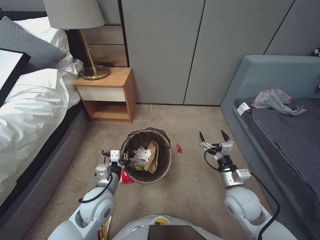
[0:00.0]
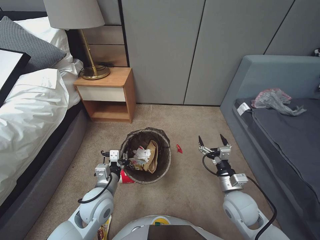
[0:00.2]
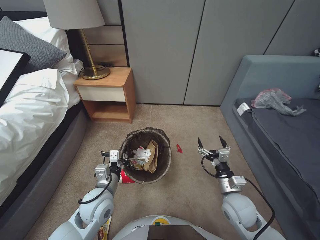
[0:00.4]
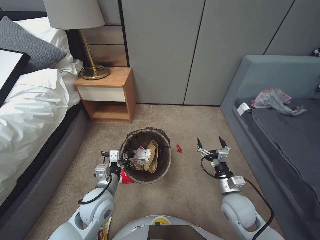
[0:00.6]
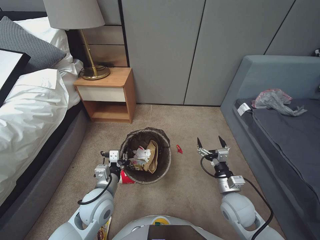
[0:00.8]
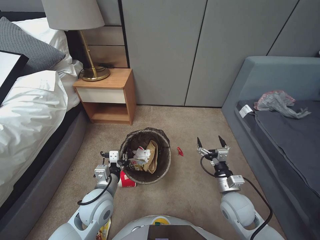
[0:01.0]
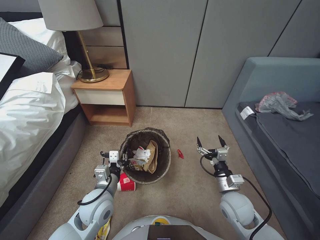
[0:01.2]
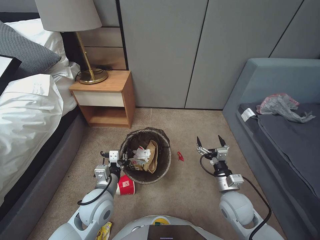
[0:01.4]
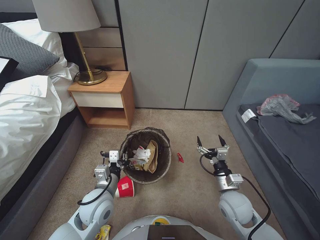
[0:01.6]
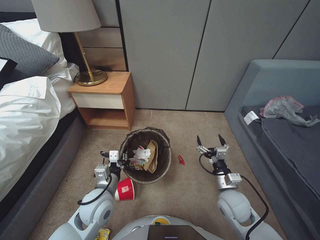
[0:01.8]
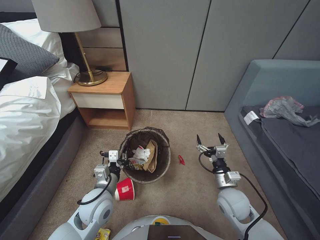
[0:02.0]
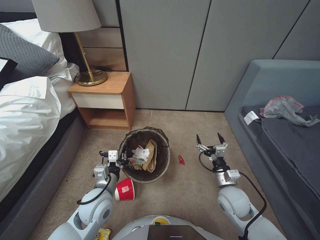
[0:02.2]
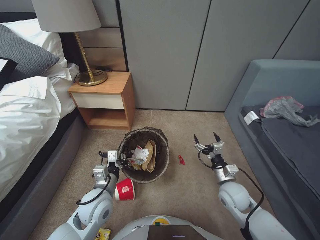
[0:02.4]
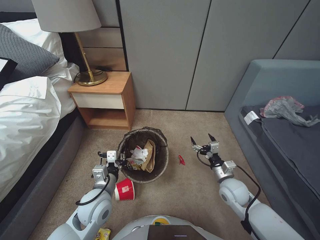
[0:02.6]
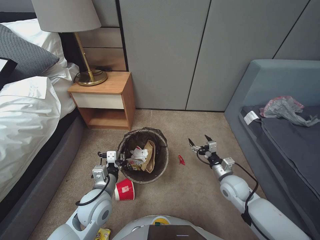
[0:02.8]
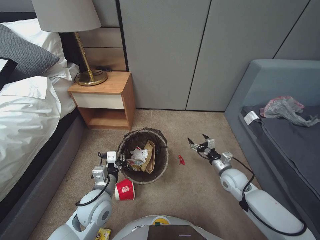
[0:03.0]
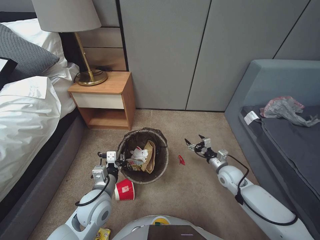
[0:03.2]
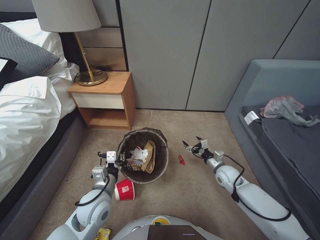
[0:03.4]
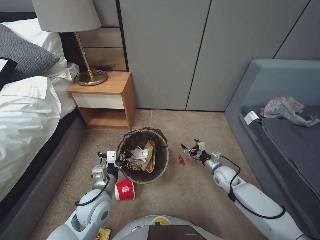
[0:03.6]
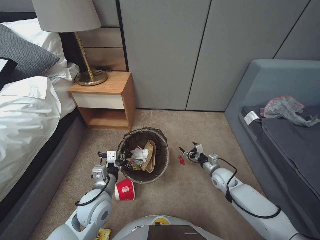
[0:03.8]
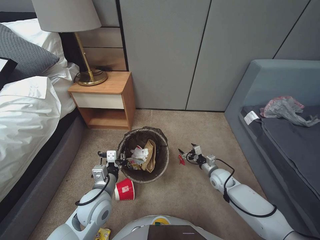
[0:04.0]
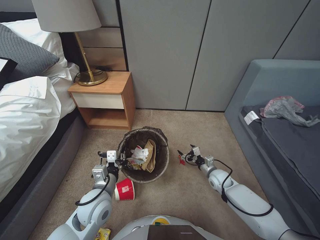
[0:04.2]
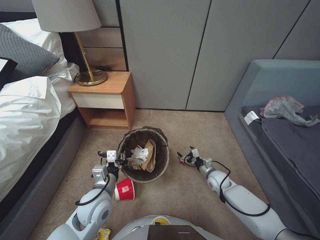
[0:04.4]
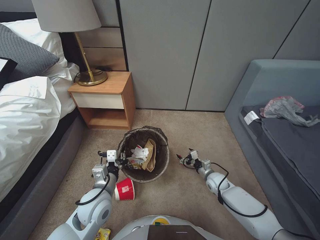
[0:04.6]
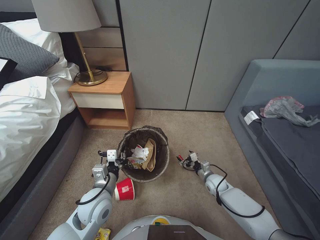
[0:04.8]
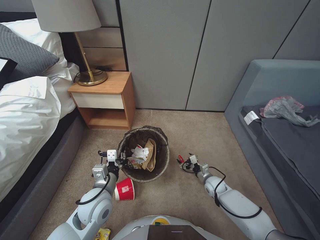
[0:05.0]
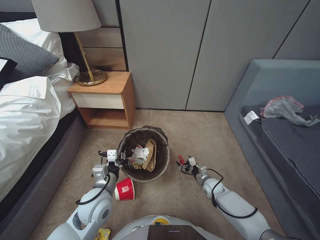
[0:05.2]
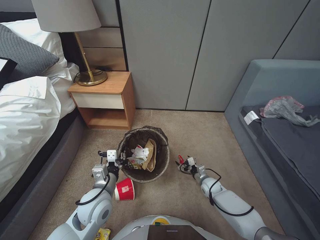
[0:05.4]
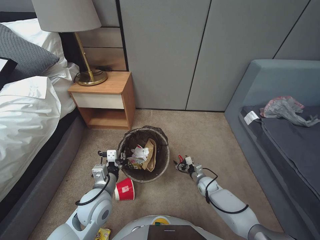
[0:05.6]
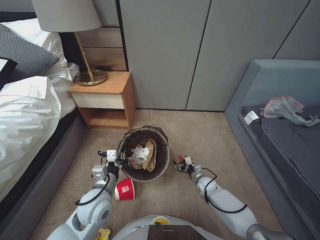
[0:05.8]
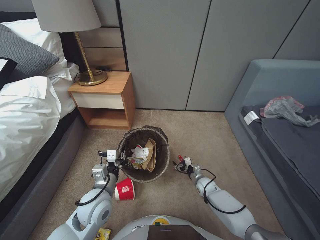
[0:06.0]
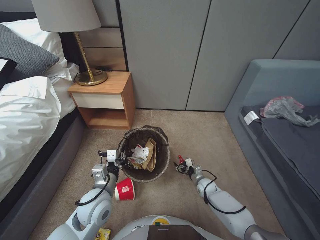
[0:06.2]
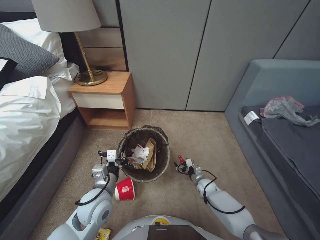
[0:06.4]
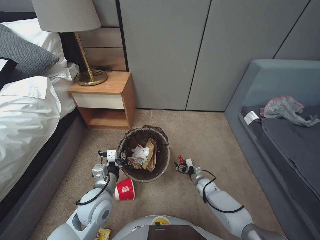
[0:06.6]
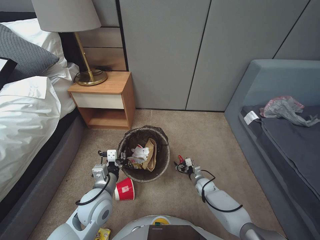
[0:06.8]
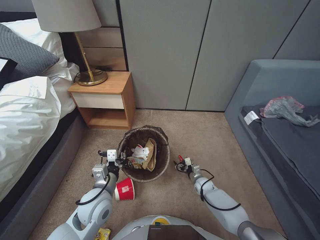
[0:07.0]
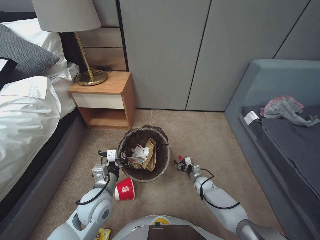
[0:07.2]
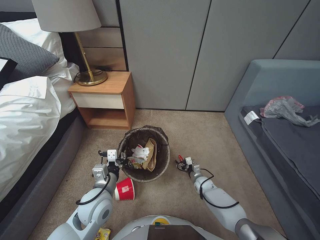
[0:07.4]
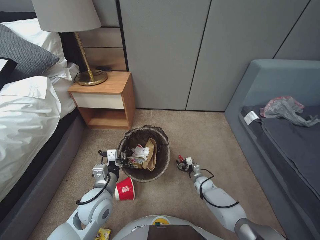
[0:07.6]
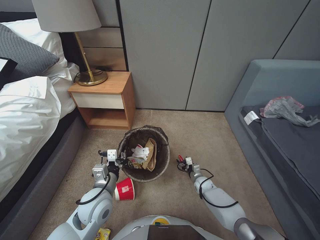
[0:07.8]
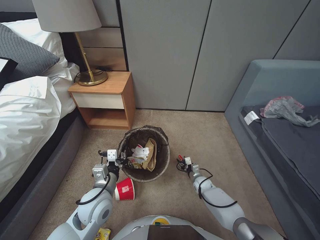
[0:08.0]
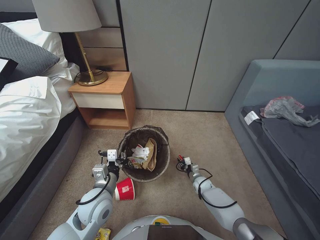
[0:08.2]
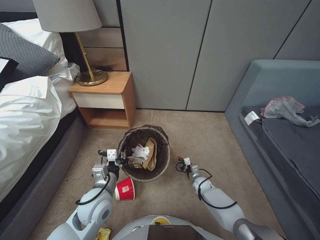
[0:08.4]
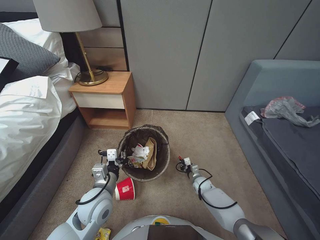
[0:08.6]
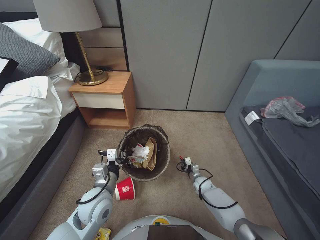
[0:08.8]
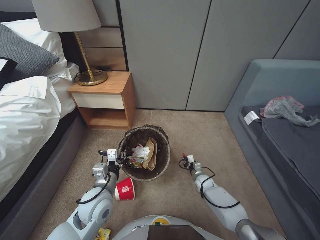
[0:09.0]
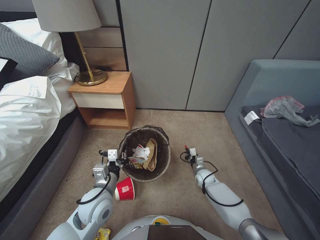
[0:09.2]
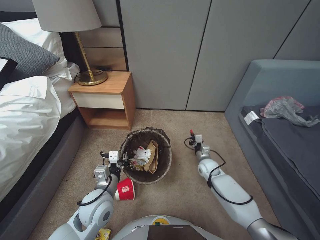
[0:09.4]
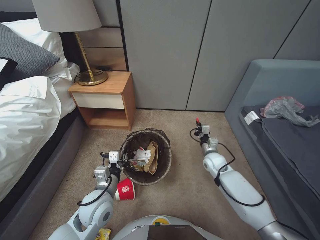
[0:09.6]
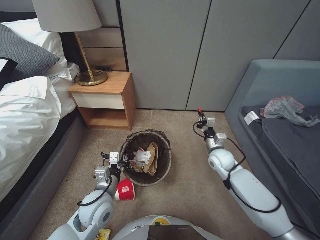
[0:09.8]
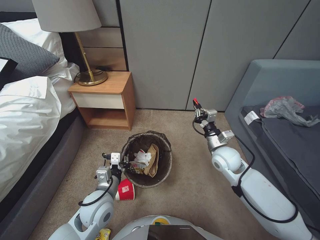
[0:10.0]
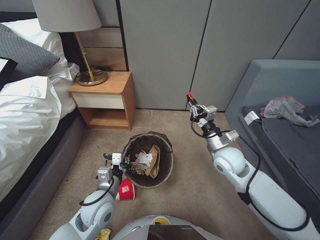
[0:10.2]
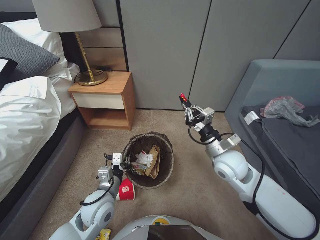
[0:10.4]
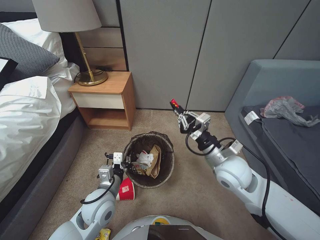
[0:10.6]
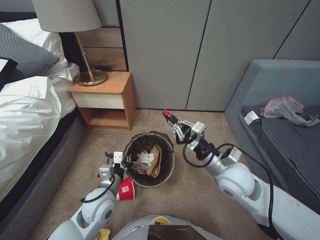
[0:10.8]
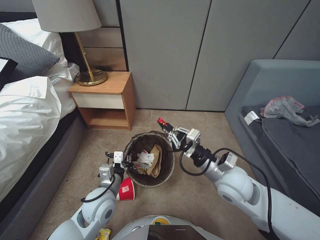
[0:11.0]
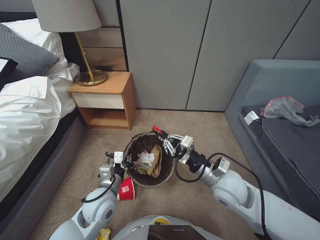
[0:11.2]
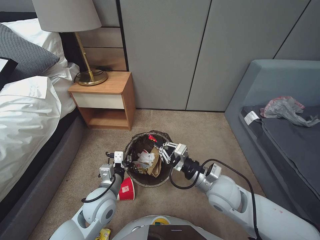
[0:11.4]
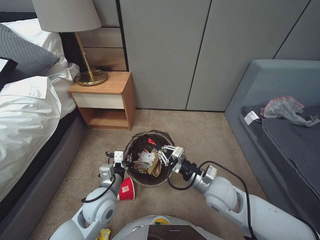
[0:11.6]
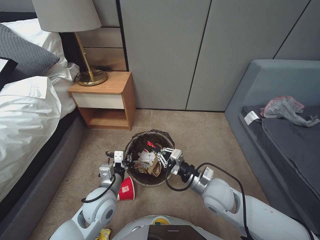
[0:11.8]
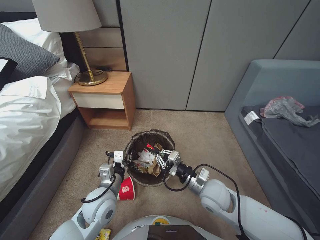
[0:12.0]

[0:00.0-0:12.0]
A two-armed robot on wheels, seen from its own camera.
Task of the whole recording: Pick up the trash bin, then pick up the garbage from the floor and place it into the trash bin.
0:00.0 to 0:01.6: The grippers stay close to where they were, moving slightly.
0:01.6 to 0:03.0: The right gripper is displaced forward and to the right by some 10 cm.
0:03.0 to 0:04.4: The right gripper moves downward, about 10 cm.
0:04.4 to 0:06.0: The right gripper travels downward by about 10 cm.
0:06.0 to 0:07.6: The grippers move only a little.
0:07.6 to 0:09.0: The right gripper closes.
0:09.0 to 0:10.4: The right gripper heads upward, covering about 25 cm.
0:10.4 to 0:12.0: The right gripper shifts roughly 20 cm backward, to the left and upward.

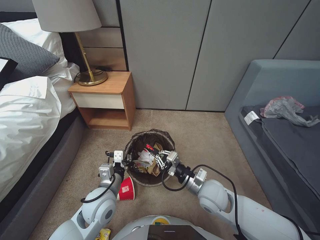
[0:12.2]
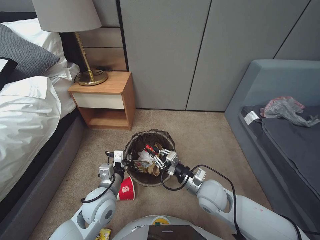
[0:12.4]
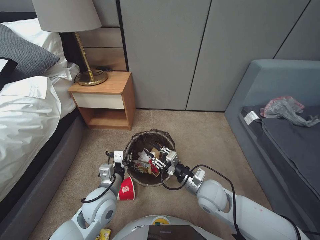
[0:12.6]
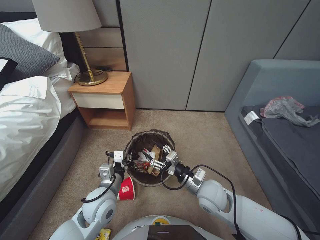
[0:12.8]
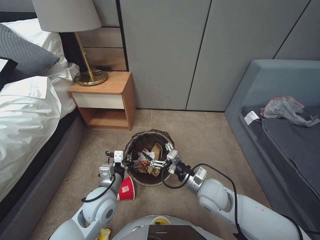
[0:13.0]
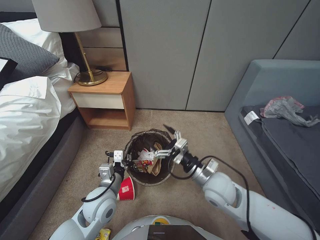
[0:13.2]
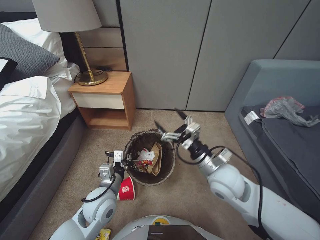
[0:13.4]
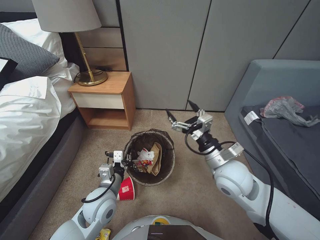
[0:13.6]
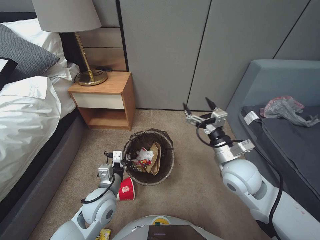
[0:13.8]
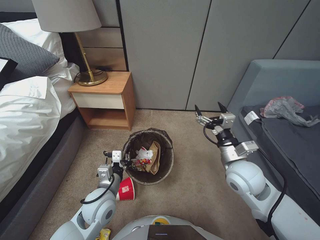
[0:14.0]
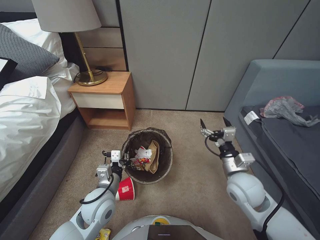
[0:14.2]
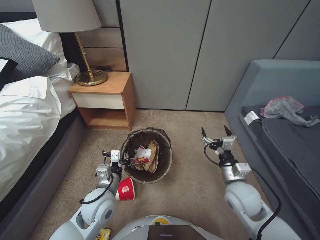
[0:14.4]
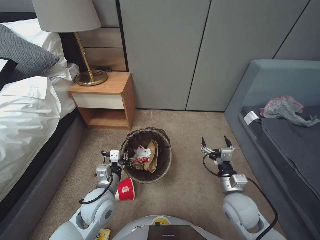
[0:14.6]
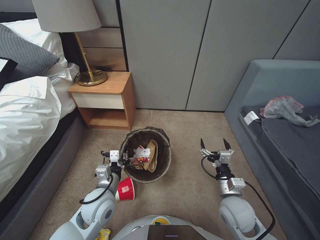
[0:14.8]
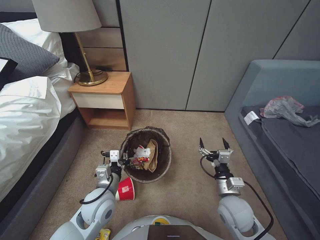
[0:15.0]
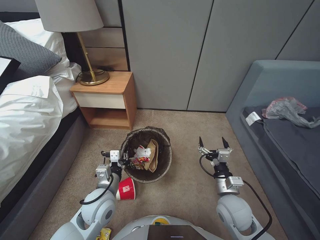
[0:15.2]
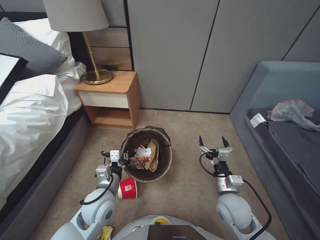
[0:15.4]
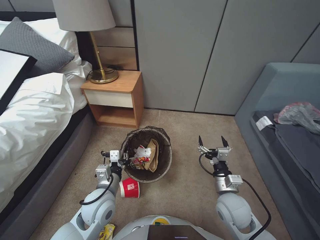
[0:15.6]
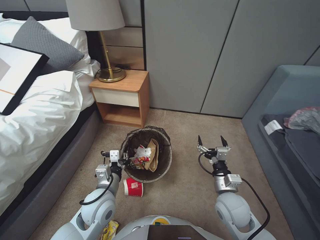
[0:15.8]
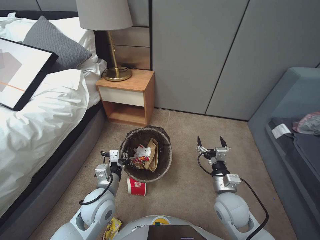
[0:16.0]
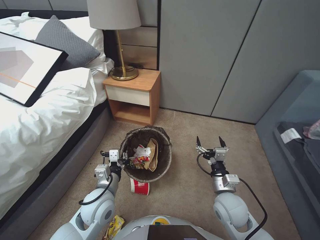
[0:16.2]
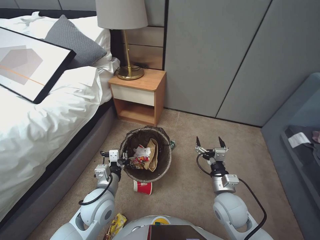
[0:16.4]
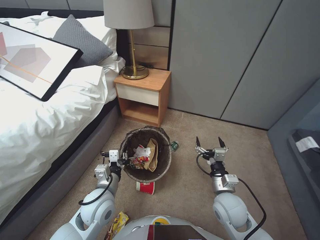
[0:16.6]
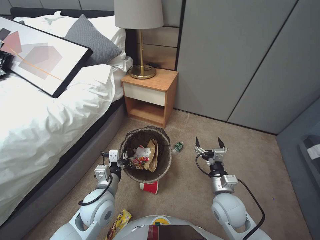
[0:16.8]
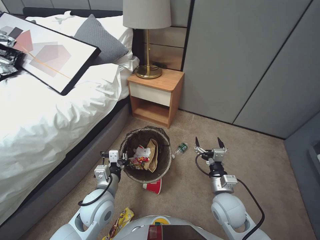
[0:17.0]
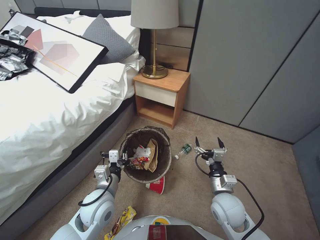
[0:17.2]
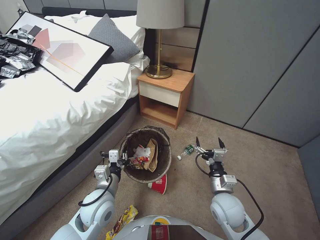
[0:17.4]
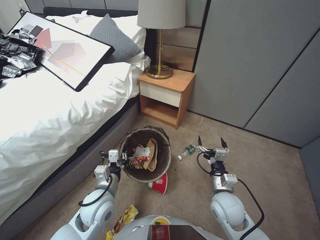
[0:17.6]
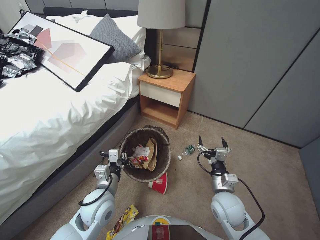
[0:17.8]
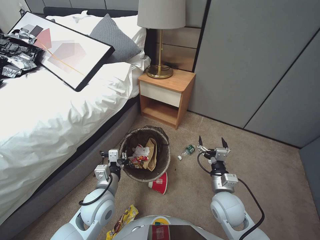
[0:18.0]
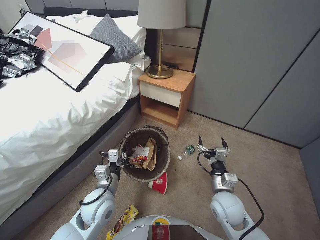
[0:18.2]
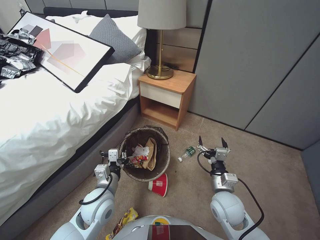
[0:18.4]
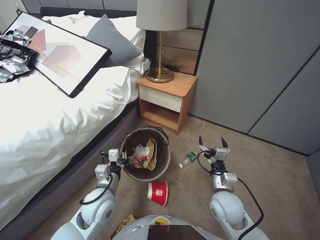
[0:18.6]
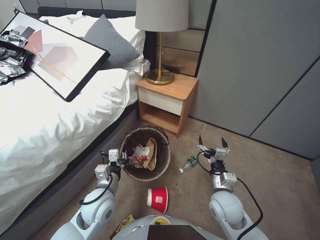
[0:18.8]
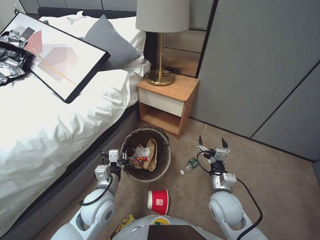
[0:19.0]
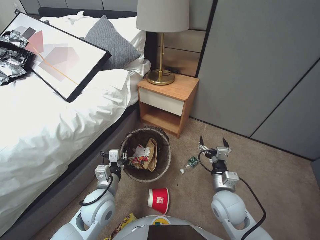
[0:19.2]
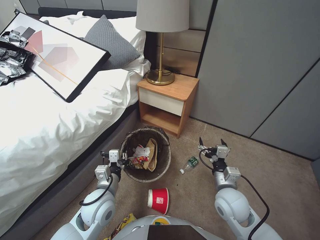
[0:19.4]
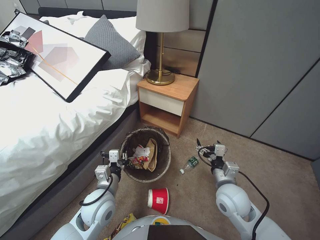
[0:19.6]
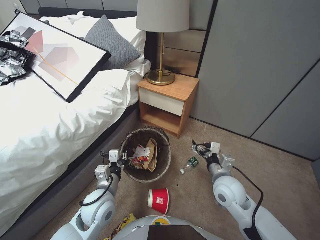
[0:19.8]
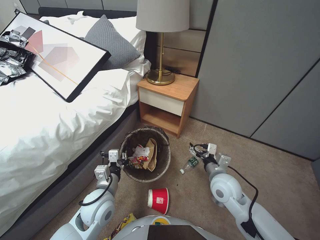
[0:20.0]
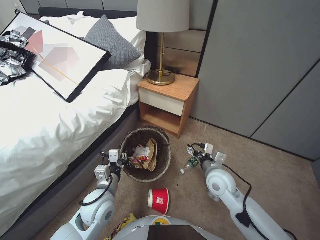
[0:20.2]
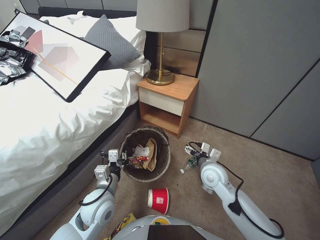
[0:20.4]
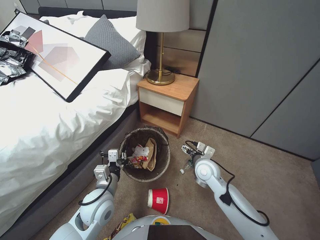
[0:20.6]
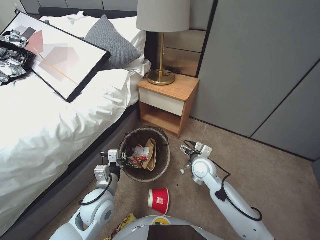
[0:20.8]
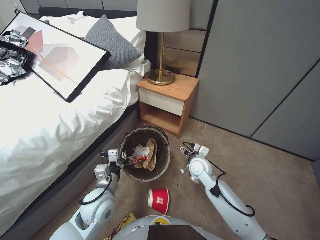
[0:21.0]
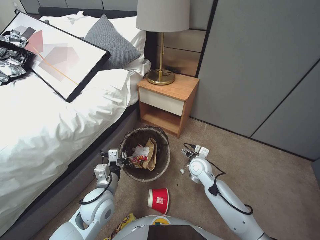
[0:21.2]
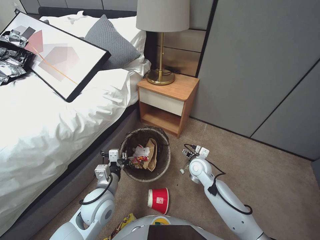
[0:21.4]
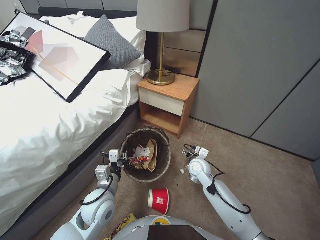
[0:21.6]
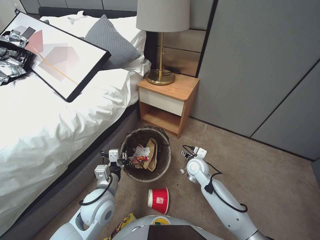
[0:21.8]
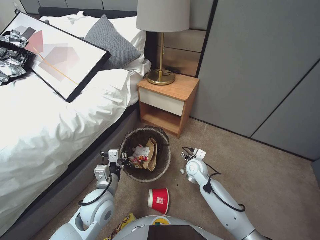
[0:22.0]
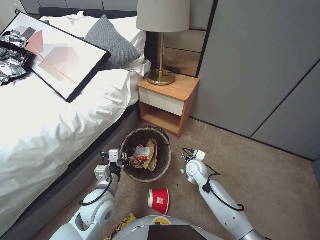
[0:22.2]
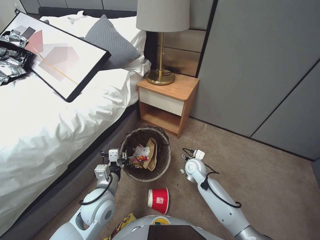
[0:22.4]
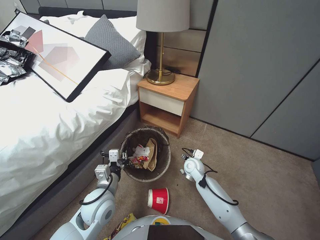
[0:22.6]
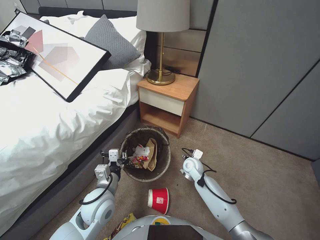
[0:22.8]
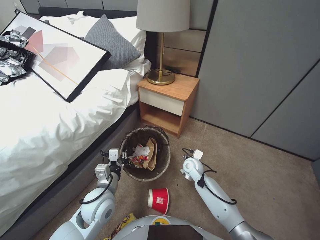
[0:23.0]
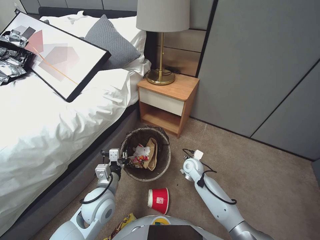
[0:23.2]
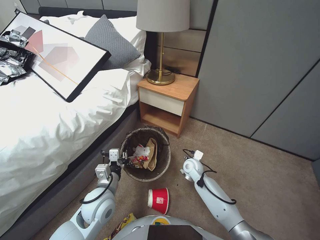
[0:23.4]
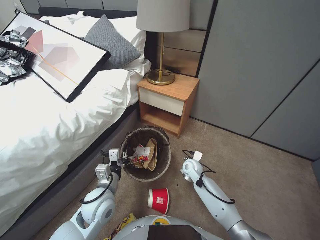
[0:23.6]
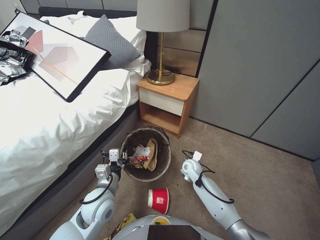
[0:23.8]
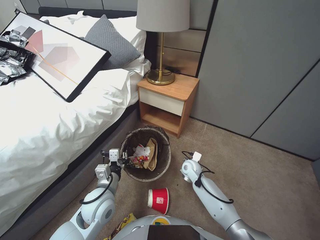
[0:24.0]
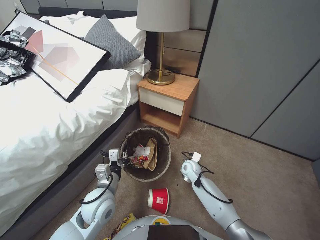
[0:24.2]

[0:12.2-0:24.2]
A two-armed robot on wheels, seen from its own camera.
Task of the whole recording: Pick up the trash bin, then pick up the garbage from the floor and place it into the trash bin.
0:12.2 to 0:13.8: The right gripper travels upward by approximately 10 cm, and opens.
0:13.8 to 0:15.2: The right gripper shifts approximately 15 cm downward and backward.
0:18.2 to 0:19.8: The right gripper moves some 5 cm.
0:19.8 to 0:21.2: The right gripper is displaced forward and downward by about 15 cm.
0:21.2 to 0:22.6: The right gripper moves downward, approximately 5 cm.
0:22.6 to 0:24.2: The grippers stay close to where they were, moving slightly.
